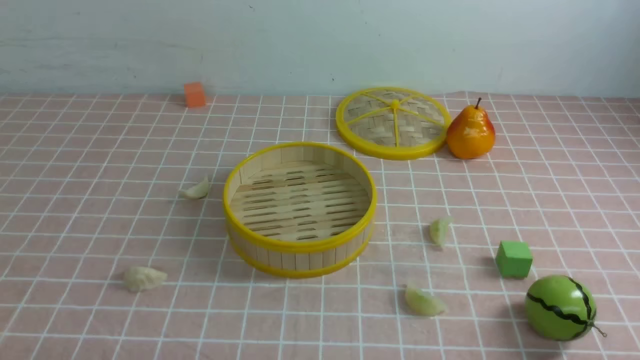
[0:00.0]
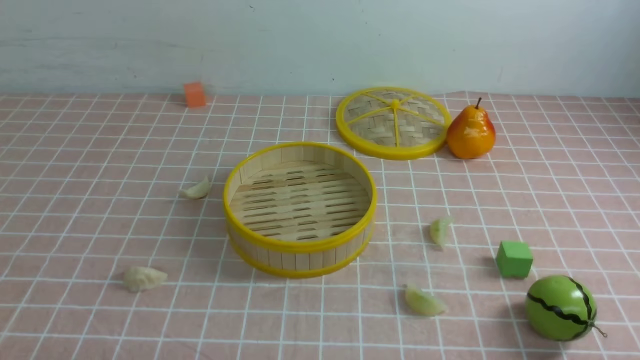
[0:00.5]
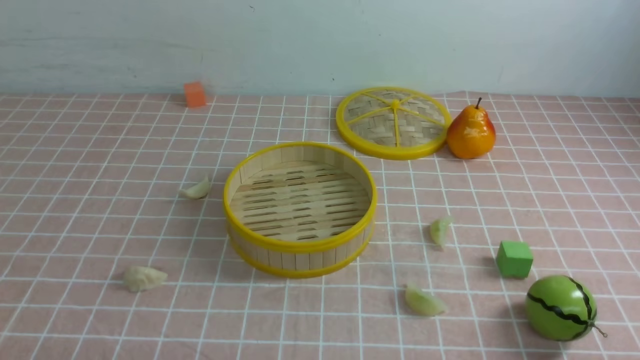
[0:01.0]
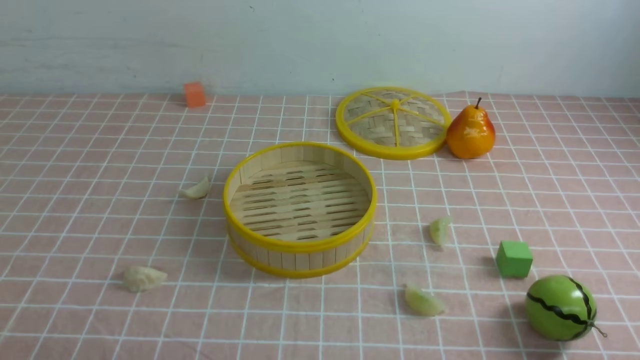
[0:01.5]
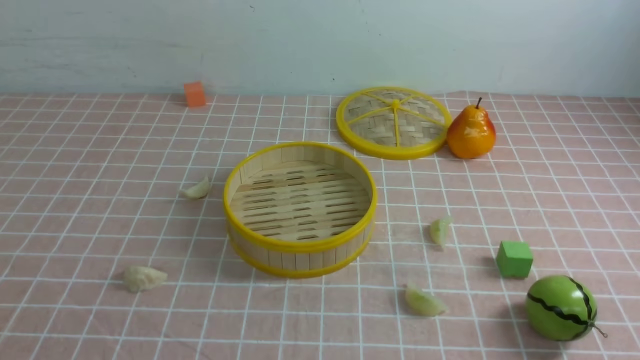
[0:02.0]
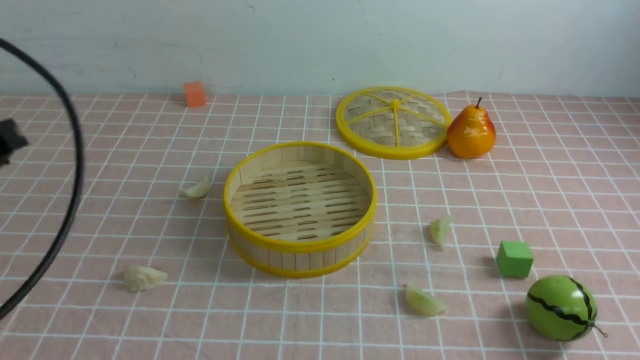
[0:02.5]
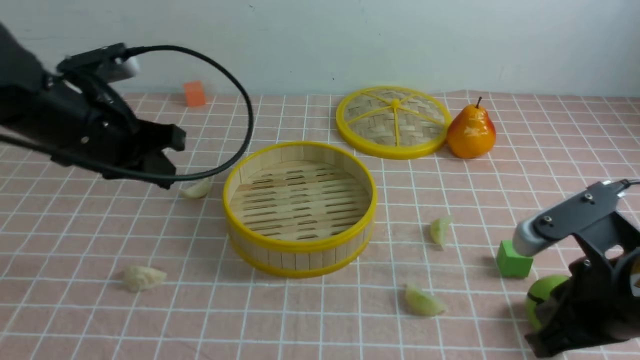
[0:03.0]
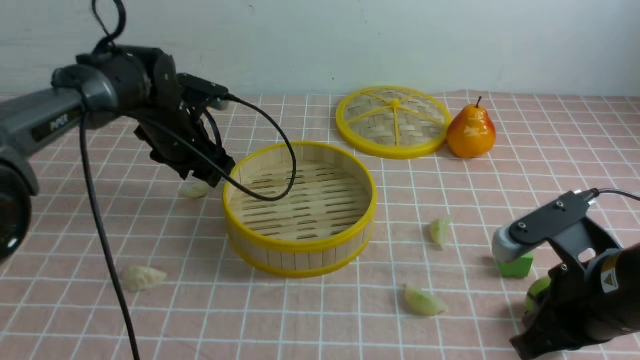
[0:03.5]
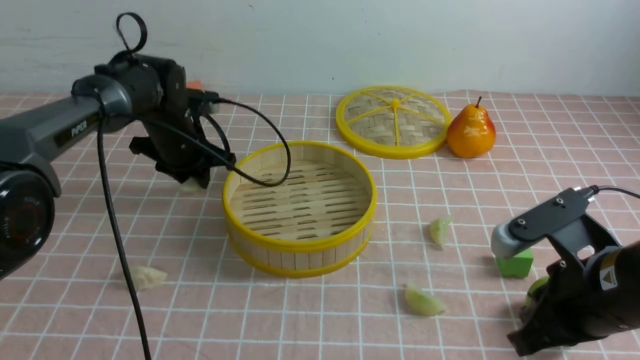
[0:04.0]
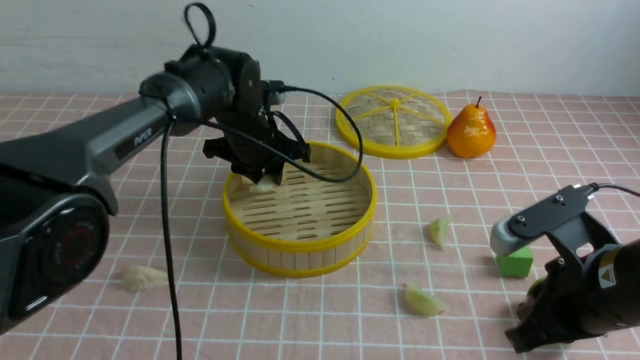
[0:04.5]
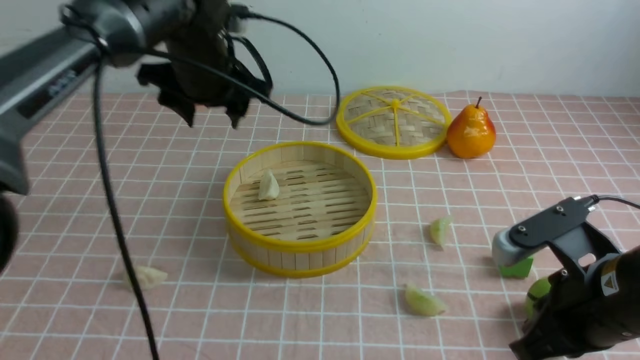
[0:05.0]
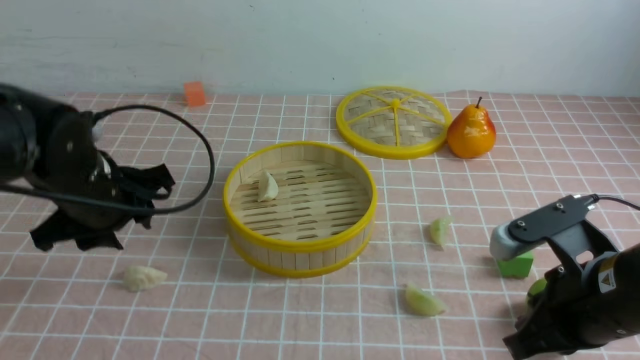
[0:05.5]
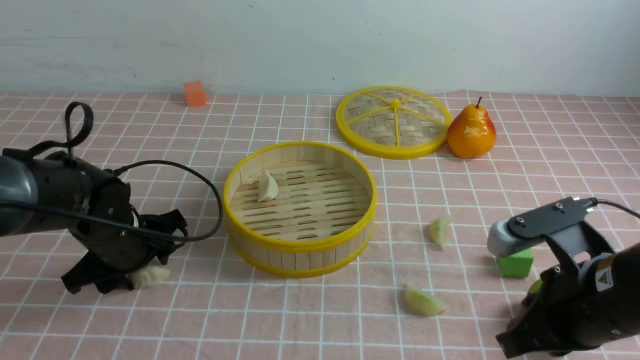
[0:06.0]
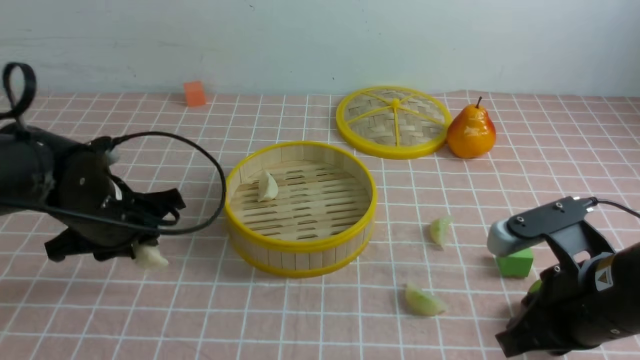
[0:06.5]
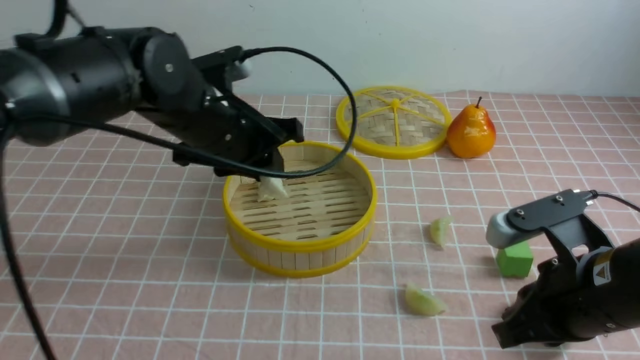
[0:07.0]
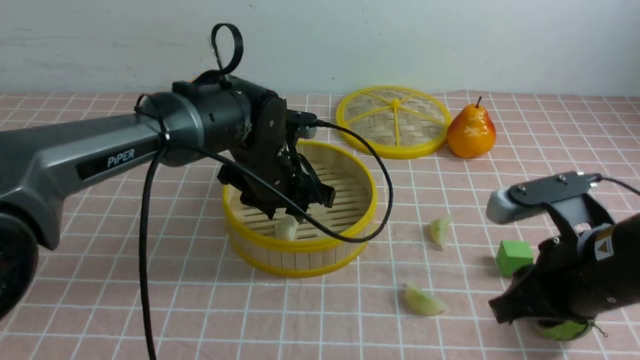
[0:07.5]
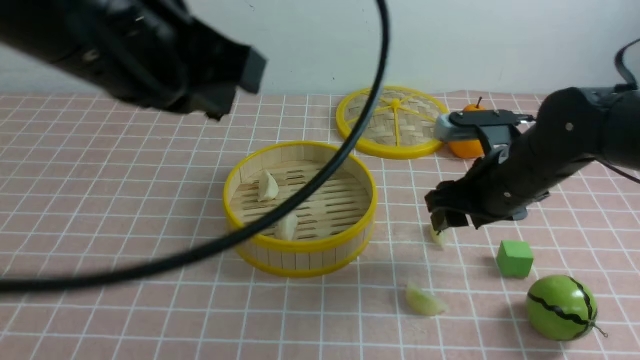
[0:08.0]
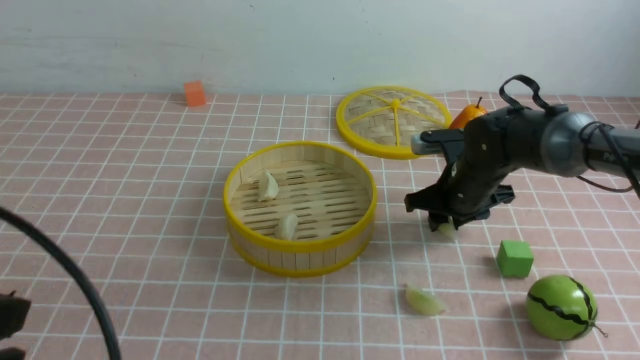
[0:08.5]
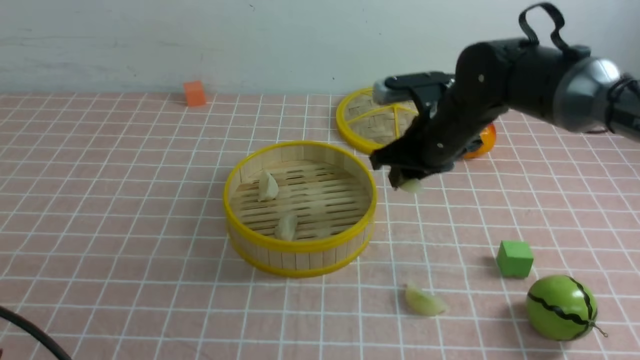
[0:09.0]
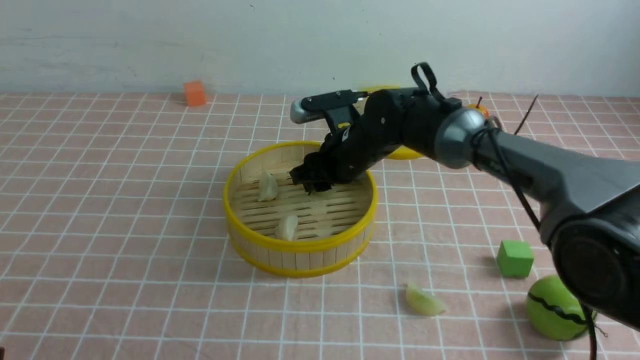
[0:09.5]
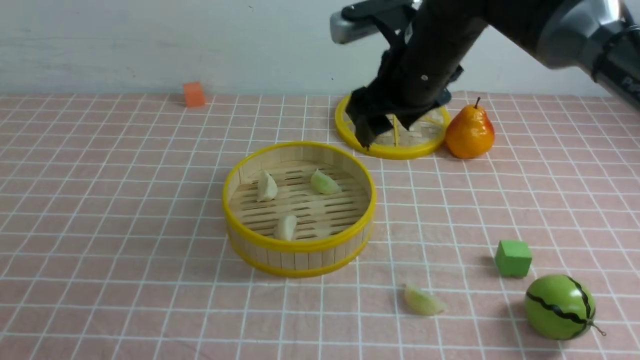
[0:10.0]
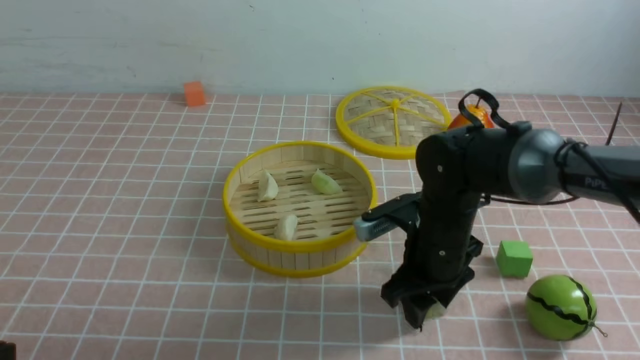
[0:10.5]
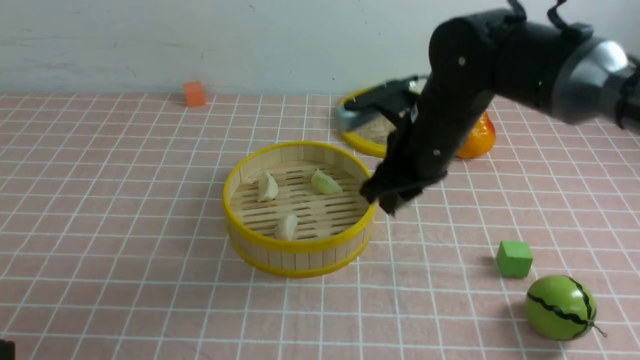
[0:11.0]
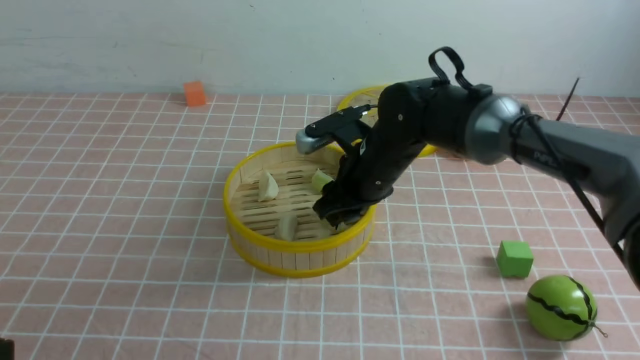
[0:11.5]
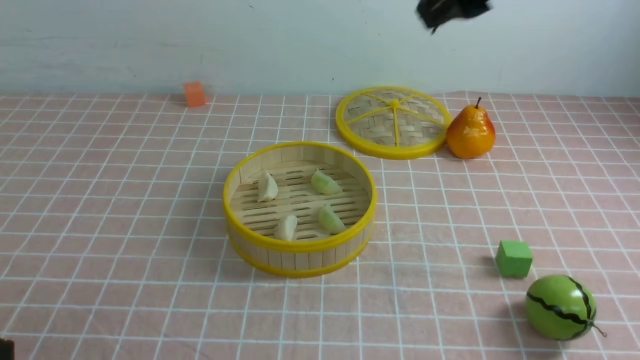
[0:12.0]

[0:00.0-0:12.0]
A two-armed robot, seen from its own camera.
Task of the whole recording: put the dumplings into the steamer on the table with the pink tablecloth.
Step, 0:00.0 to 0:03.5: use the left arm to grab a dumpling.
Step, 0:05.0 to 0:06.5: use the left arm to grab a dumpling.
Step, 0:07.0 to 0:07.5: use the left arm to put the dumpling into the steamer.
Step, 0:08.0 to 0:08.5: use the right arm to grab a dumpling.
Step, 0:09.0 to 0:09.5: use the right arm to put the dumpling into the steamer.
Step, 0:10.0 to 0:10.5: use the right arm to grab a dumpling.
Step, 0:11.0 to 0:11.5: use the right arm to put the dumpling into the steamer.
0:02.0 to 0:04.0: The right gripper is displaced forward and to the left by roughly 20 cm. Meanwhile the left gripper shifts roughly 40 cm forward.
0:04.0 to 0:06.0: The left gripper goes some 15 cm backward, goes upward and returns, approximately 10 cm each way, and opens.
0:06.0 to 0:08.0: The left gripper is displaced upward and backward by roughly 30 cm, and closes; the right gripper is displaced forward by some 15 cm, and opens up.
0:08.0 to 0:10.0: The left gripper shifts approximately 25 cm downward, backward and to the left. Meanwhile the right gripper goes some 10 cm to the left and upward, and closes, then reopens.
0:10.0 to 0:12.0: The right gripper is displaced upward and backward by about 20 cm, and closes.

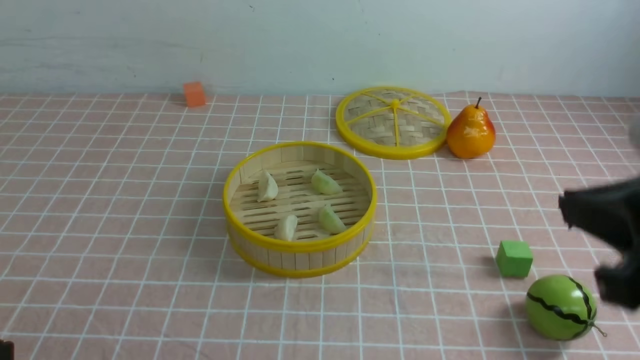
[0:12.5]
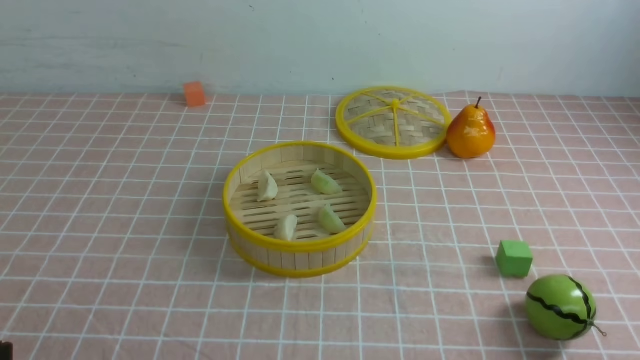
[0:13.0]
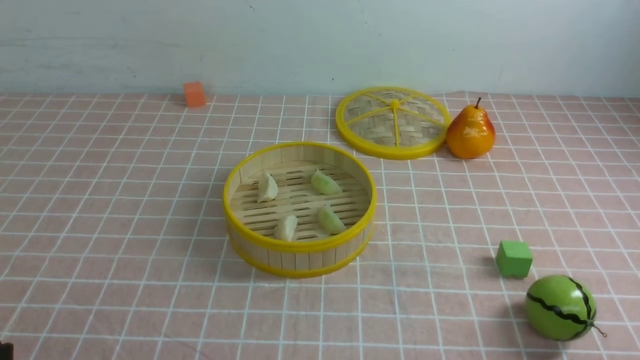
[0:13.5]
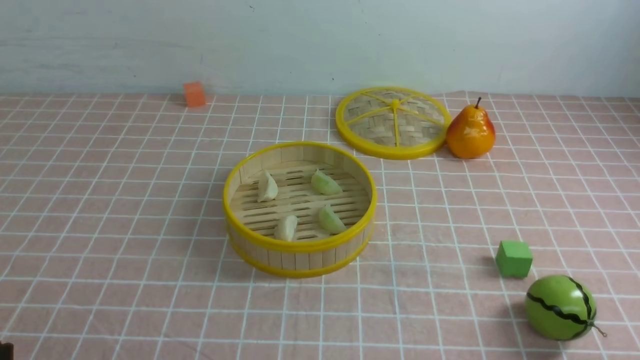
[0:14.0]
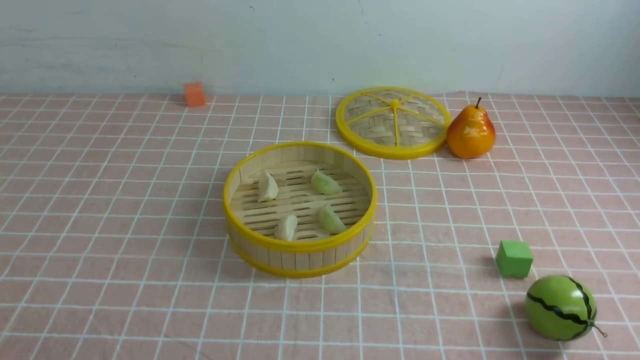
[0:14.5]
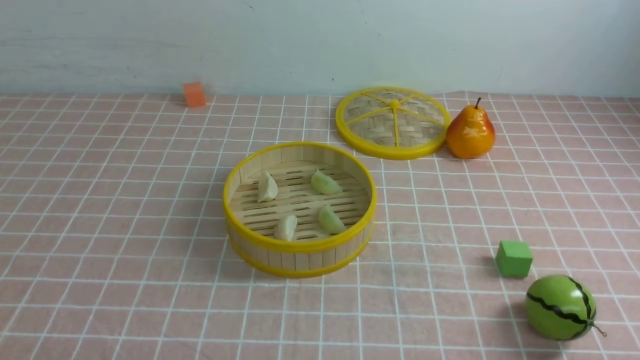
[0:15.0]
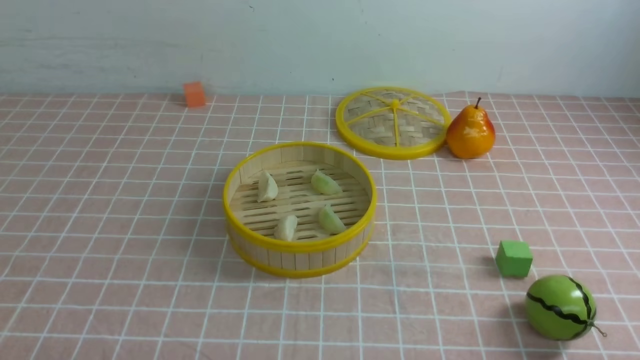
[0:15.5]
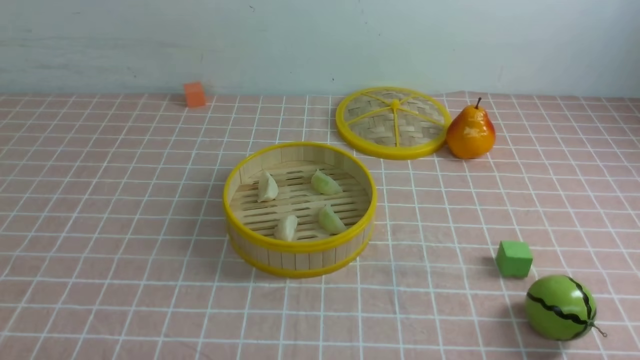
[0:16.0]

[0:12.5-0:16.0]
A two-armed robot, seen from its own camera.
Task of the whole recording: put the dumplings into the steamer on the table with the pink tablecloth.
0:12.5 to 0:14.5: The right gripper goes roughly 20 cm downward, backward and to the right.

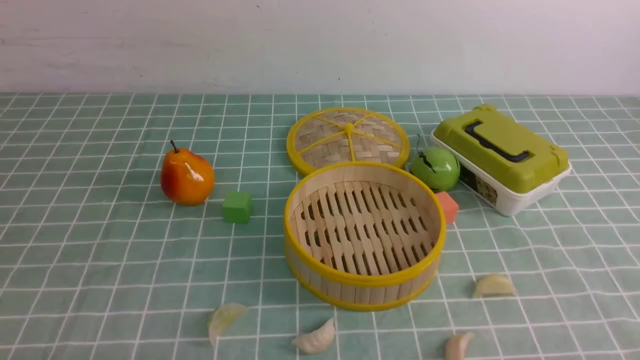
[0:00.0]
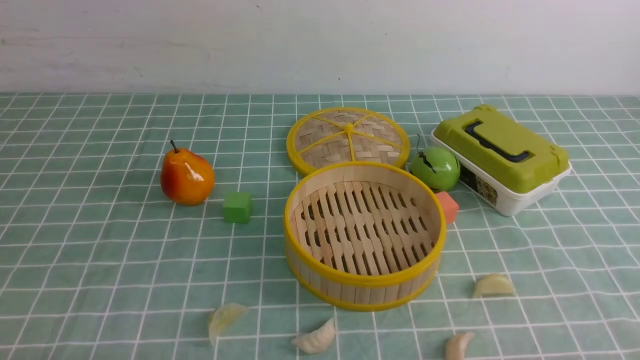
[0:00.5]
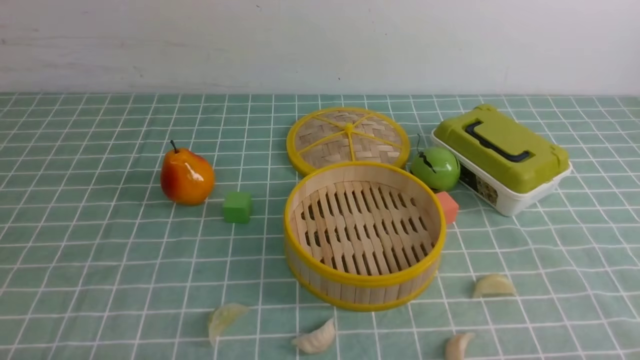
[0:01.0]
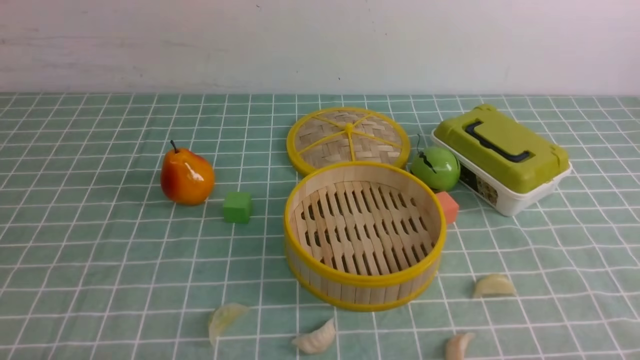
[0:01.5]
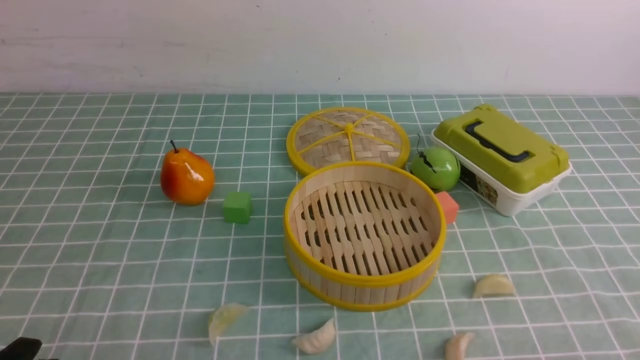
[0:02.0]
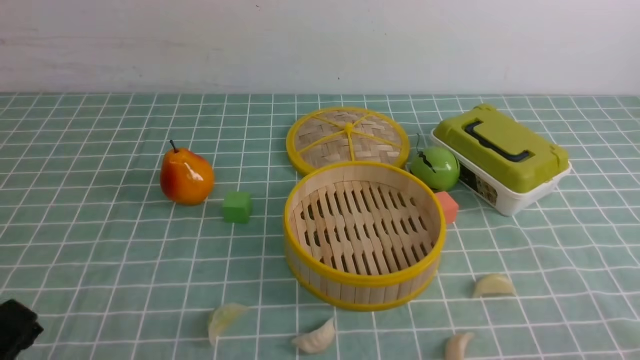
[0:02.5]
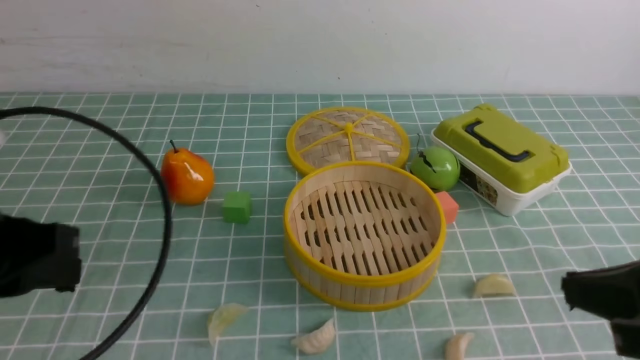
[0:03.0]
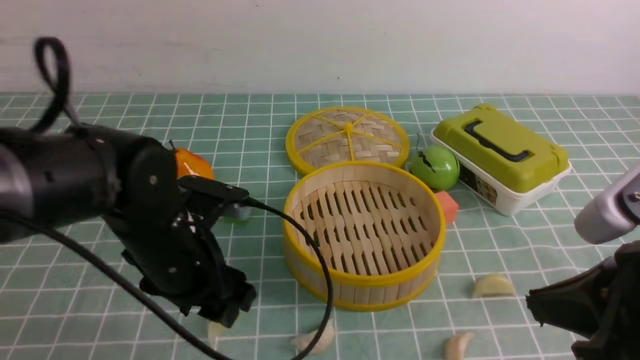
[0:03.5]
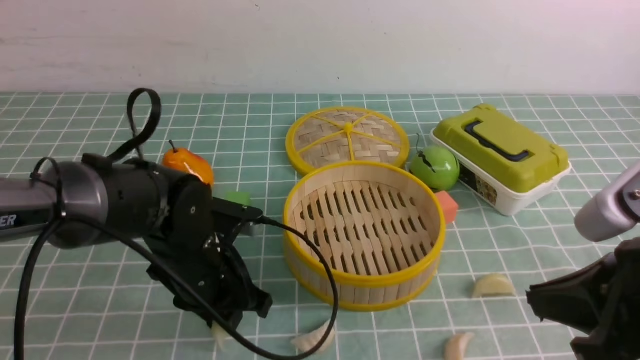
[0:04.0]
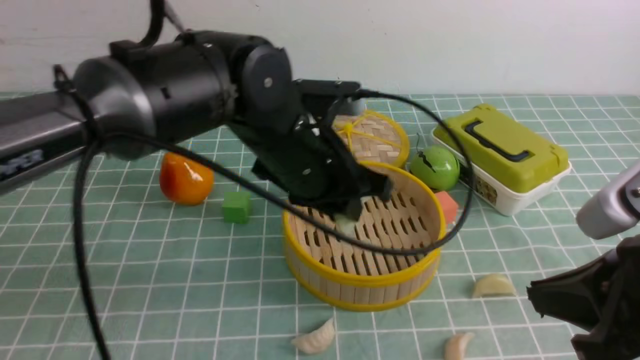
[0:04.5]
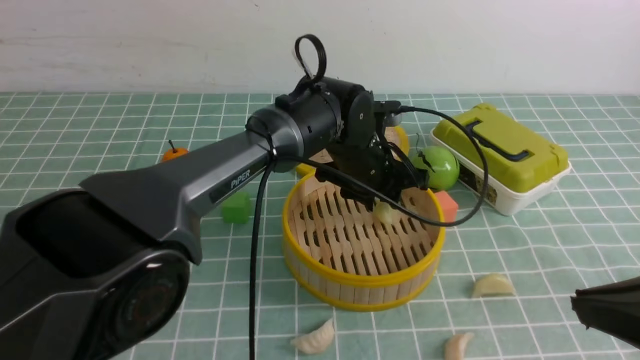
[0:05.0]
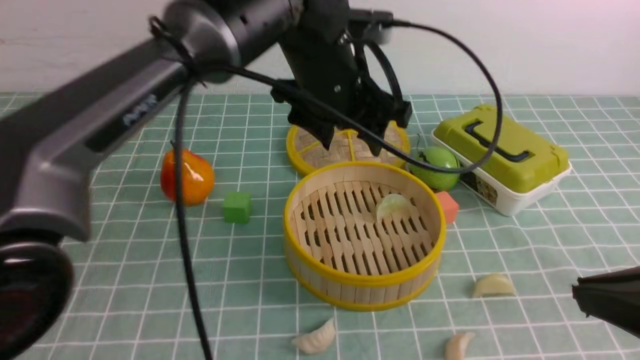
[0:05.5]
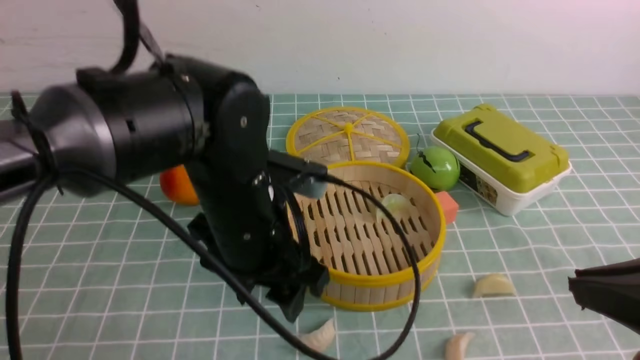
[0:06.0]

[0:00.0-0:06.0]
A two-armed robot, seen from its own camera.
Task of the whole recording: put the dumplings into the steamer on the table with the blue tablecloth.
Step, 0:00.0 to 0:03.5: use the left arm to grab a dumpling.
Step, 0:04.5 to 0:05.0: use the left arm to put the dumpling into the steamer.
0:02.0 to 0:04.0: The left gripper moves forward and to the right, some 30 cm, and closes, then opens again; the right gripper travels upward, forward and to the left by approximately 20 cm, and closes its fingers.
0:04.0 to 0:06.0: The left gripper shifts roughly 10 cm upward and to the right, and opens its fingers.
